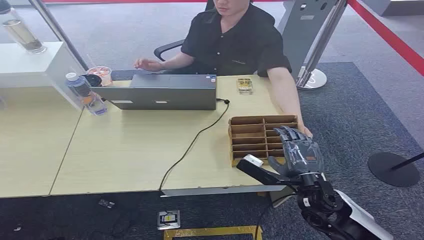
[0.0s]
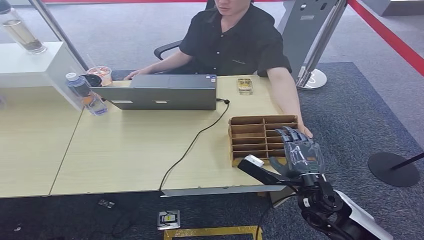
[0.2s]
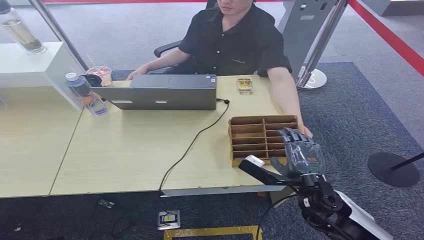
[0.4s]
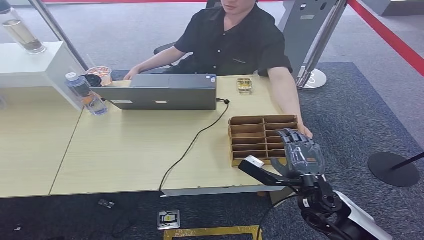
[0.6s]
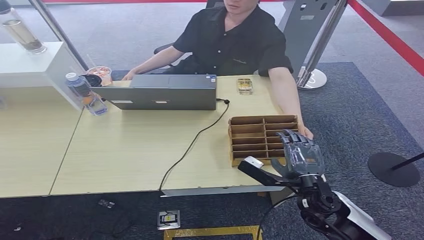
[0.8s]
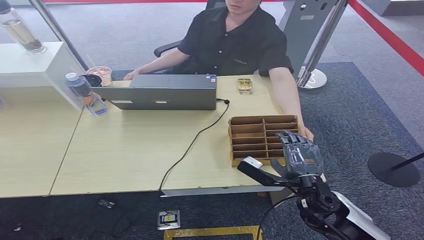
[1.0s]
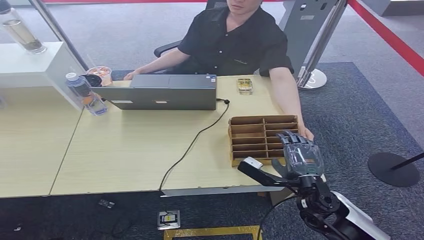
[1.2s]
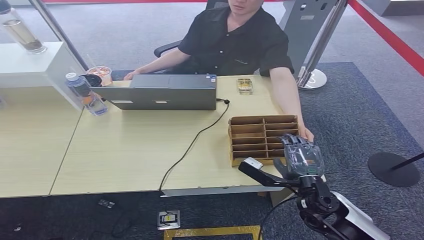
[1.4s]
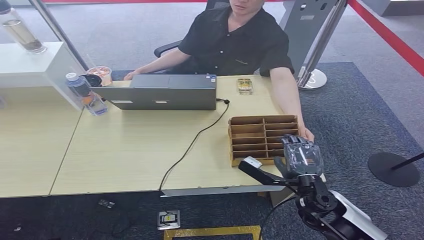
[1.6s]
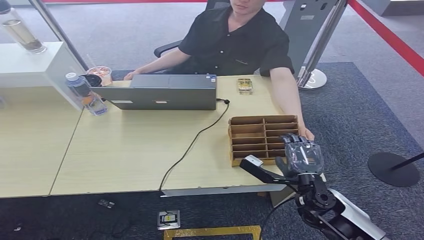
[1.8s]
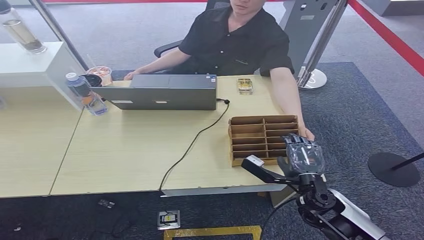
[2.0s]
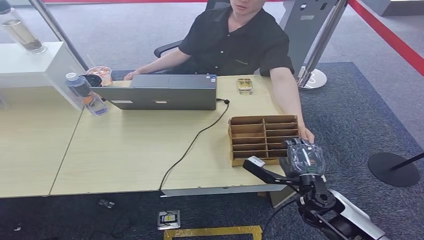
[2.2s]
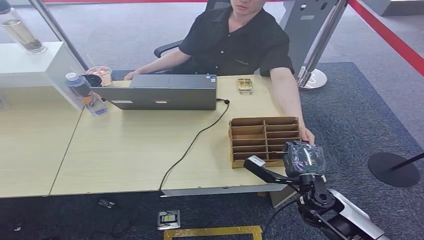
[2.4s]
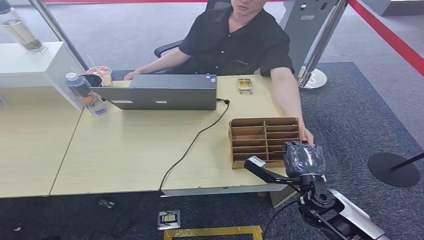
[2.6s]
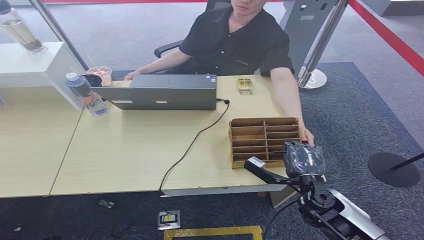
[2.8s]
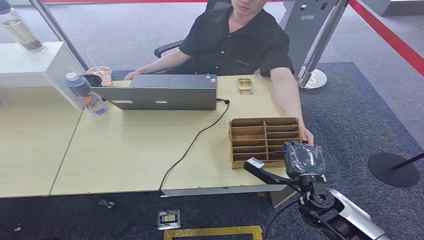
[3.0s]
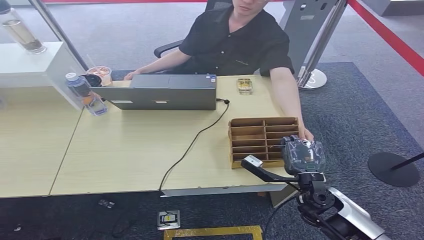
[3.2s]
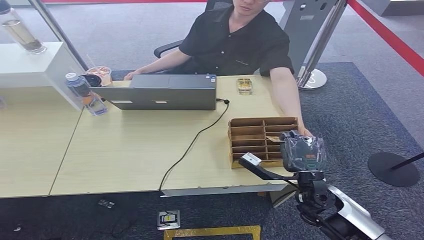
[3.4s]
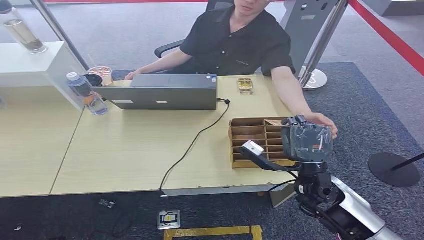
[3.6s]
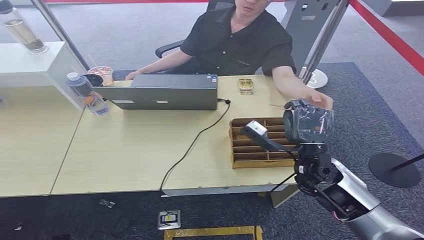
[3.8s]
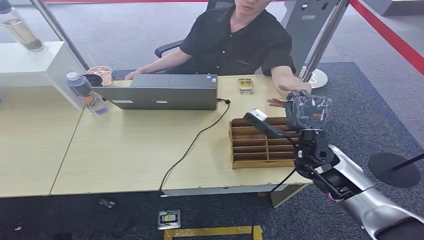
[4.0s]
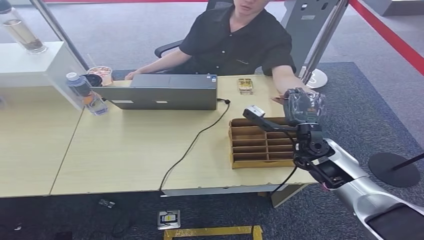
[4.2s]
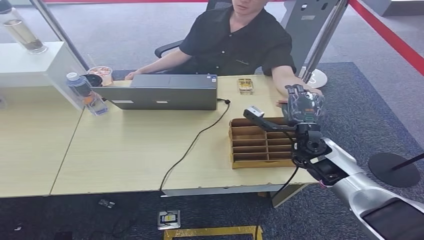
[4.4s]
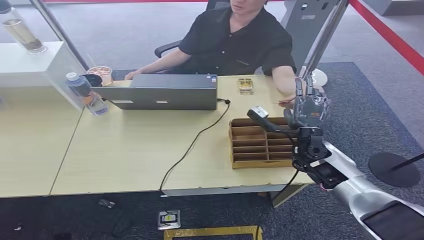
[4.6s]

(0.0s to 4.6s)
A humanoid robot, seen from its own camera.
Step, 0.0s - 3.2s: Pick up the room card from the card holder.
Step, 3.6s - 4.4s: Hand the room card to the target.
1.6s - 3.0s: The hands stay close to where they were, moving slightly.
3.0s - 4.6s: The right hand heads forward and upward, covering about 15 cm.

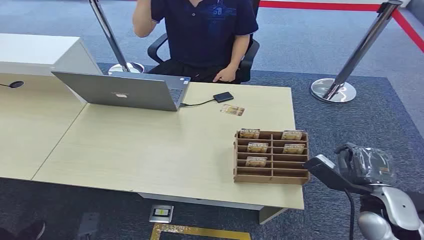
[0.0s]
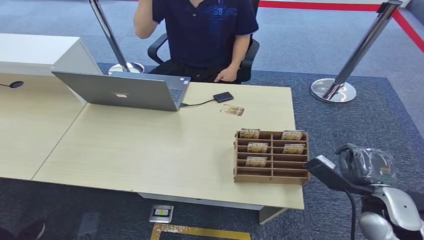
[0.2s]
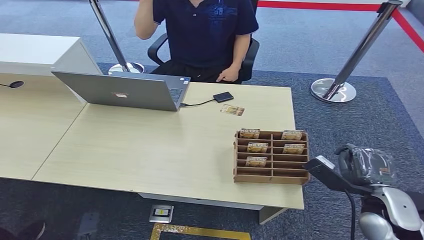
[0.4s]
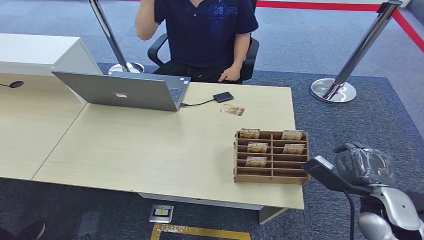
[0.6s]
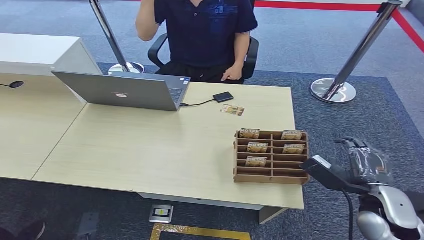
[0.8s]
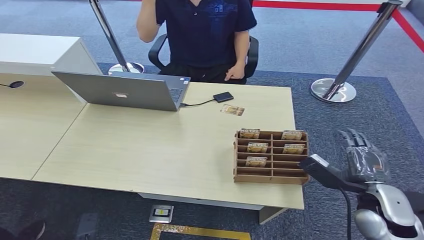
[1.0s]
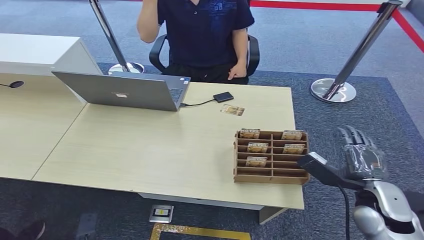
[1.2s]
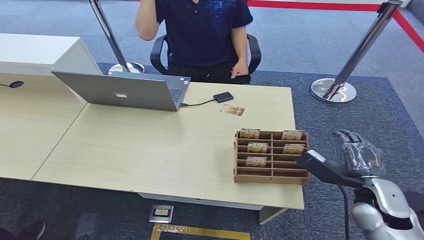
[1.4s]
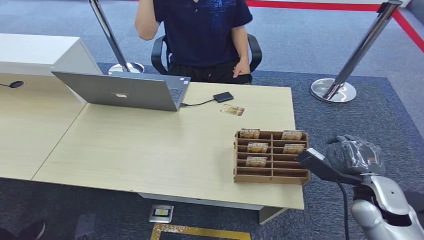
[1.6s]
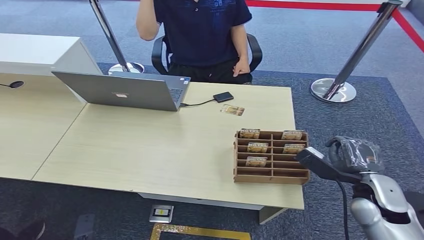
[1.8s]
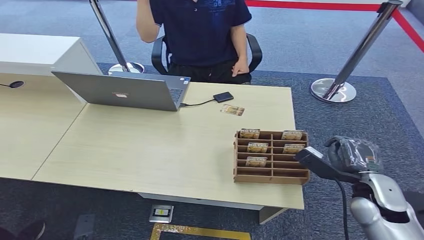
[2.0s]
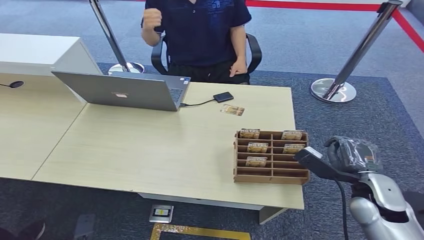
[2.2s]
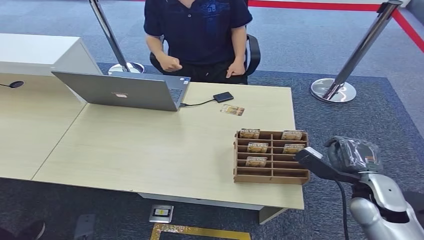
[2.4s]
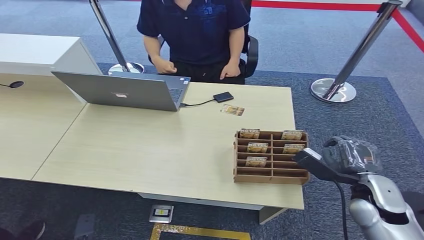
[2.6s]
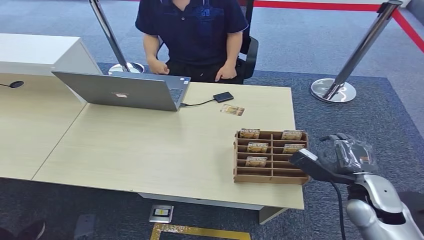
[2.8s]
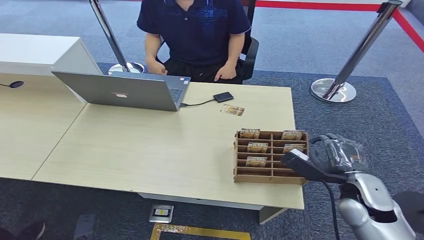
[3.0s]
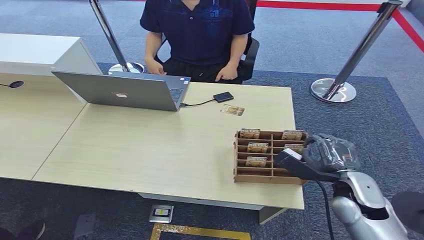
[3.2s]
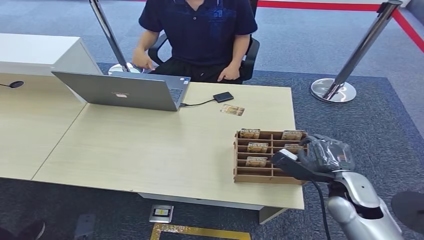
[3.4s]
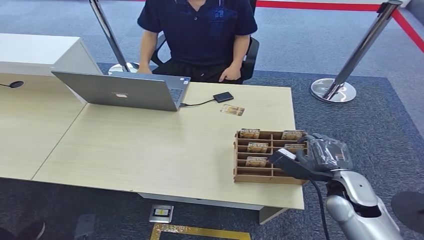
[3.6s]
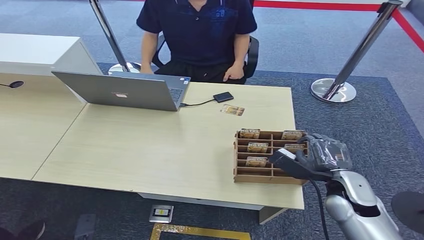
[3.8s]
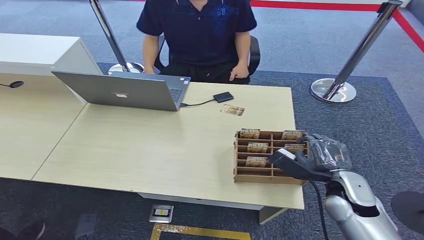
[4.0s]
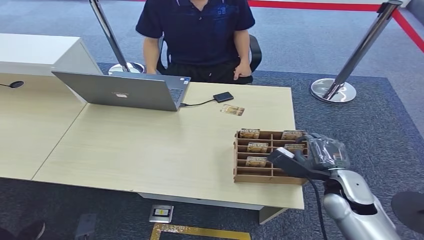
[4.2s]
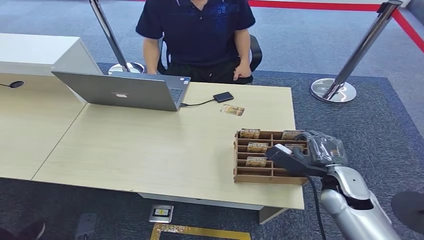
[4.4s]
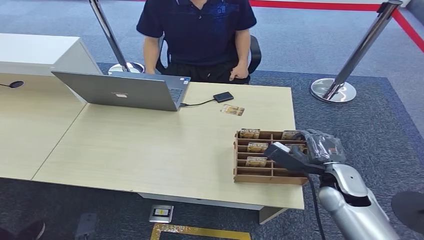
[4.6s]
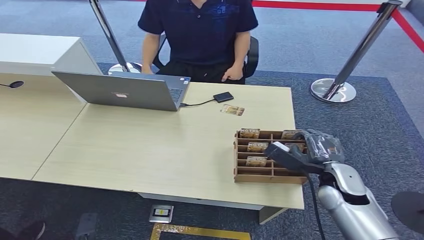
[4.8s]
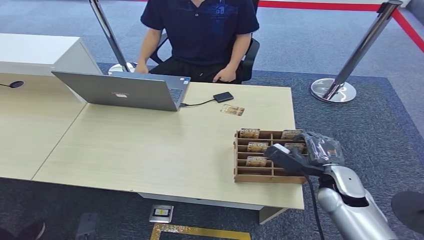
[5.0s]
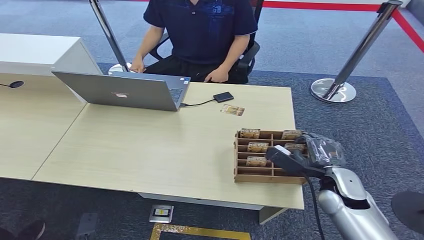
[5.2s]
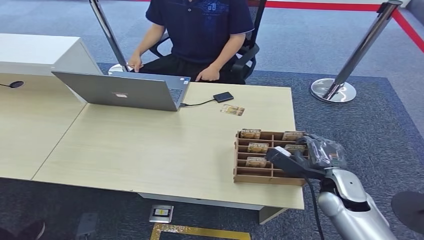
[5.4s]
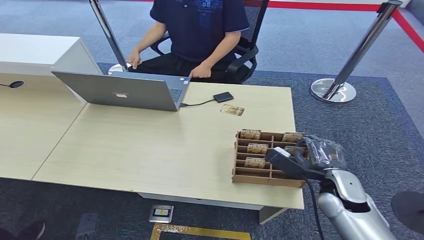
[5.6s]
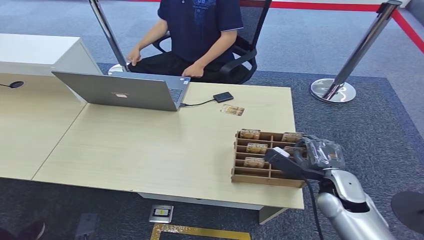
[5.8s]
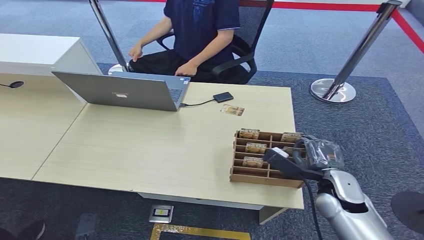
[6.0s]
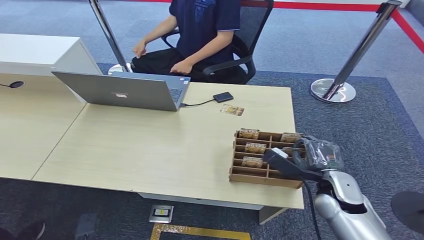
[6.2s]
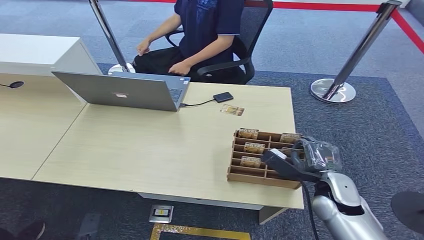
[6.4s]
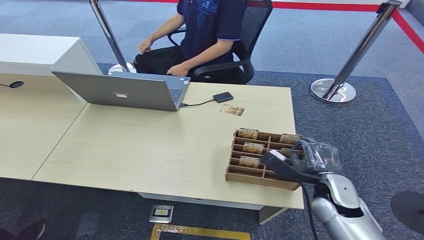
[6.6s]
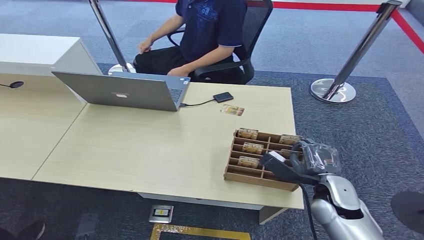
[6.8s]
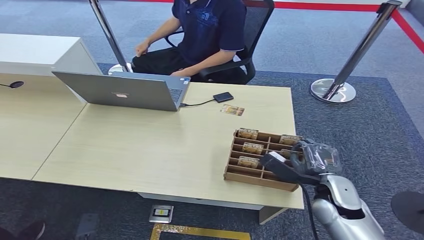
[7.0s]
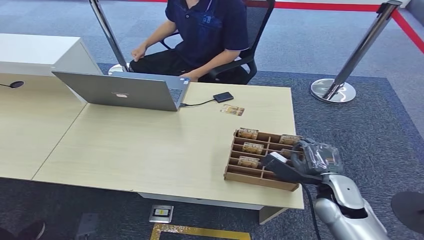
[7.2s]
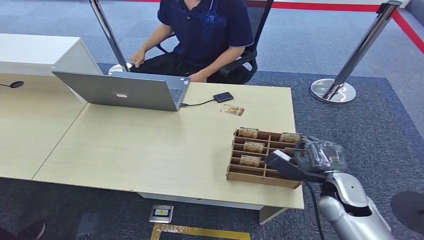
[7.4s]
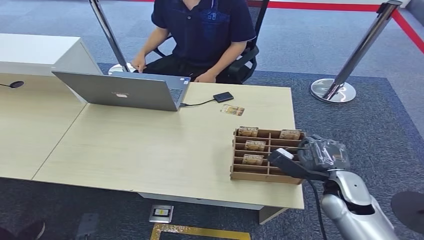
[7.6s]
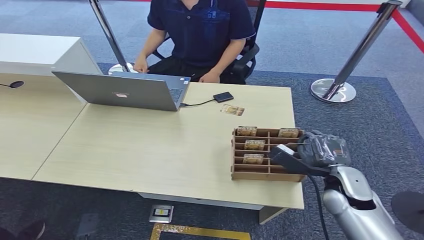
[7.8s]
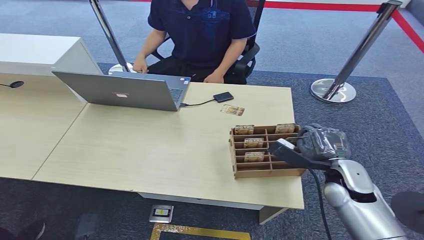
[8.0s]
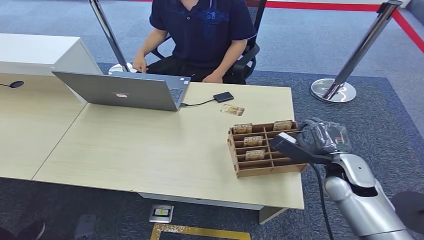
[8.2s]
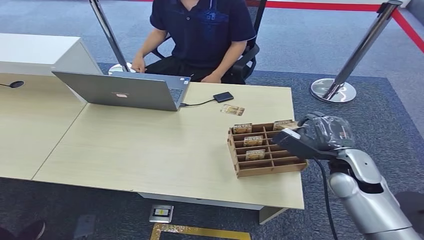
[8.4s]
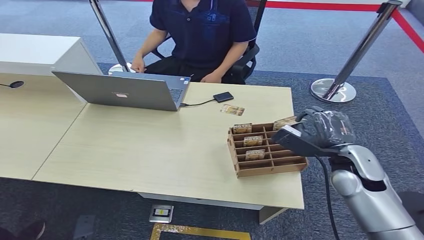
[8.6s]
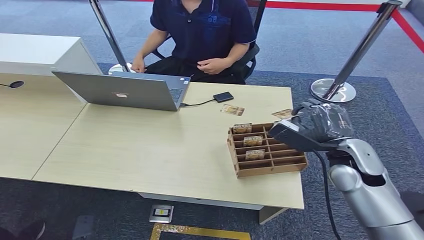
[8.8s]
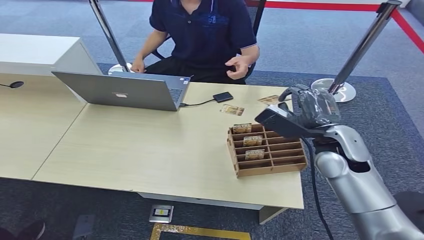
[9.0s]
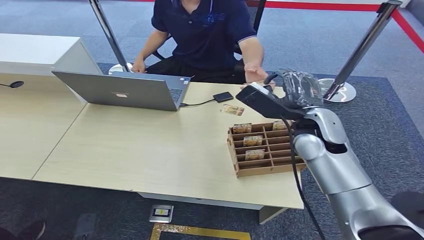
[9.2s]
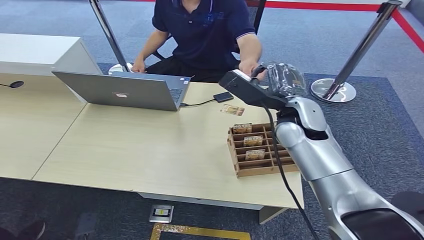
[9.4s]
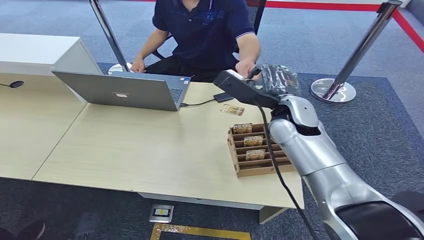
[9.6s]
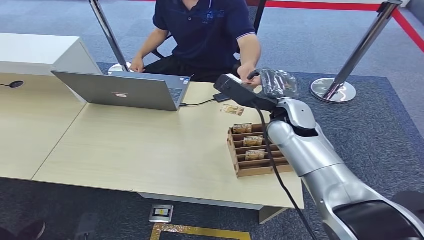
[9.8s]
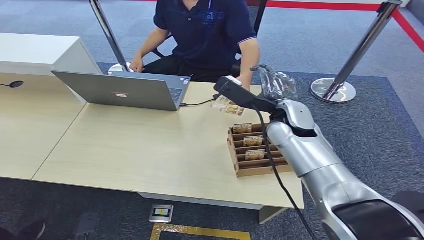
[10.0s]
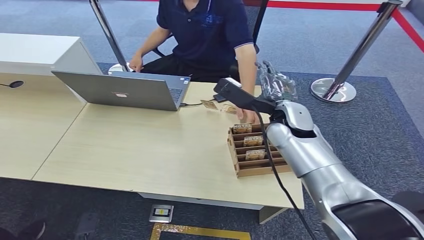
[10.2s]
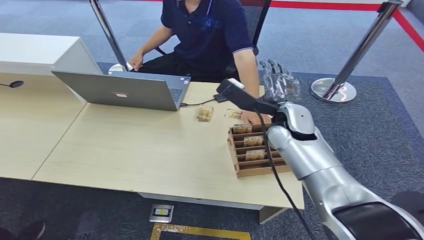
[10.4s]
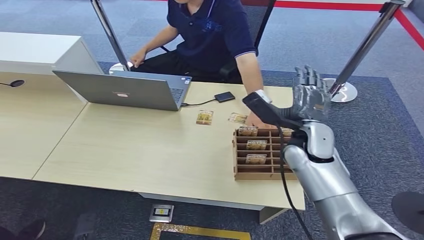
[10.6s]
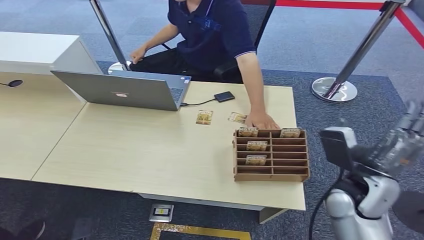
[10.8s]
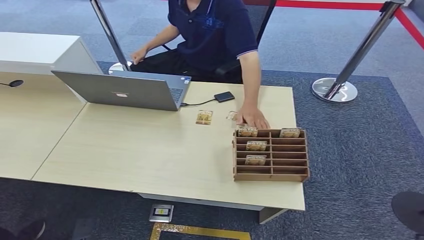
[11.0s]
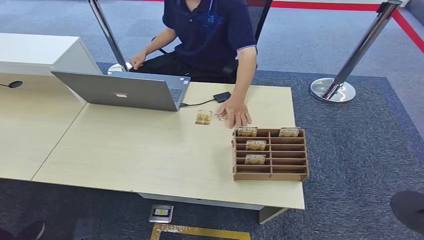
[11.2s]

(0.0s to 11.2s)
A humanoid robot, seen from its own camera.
Step, 0.0s - 7.6s: Pick up the room card from the card holder.
Step, 8.0s - 11.2s: Hand the room card to the target.
1.6s - 4.8s: There are only small adjustments of the hands.
4.8s - 6.4s: The hands make only small movements.
6.4s - 8.0s: The right hand moves some 5 cm.
8.0s - 9.6s: The right hand travels to the left, upward and forward by some 25 cm.
9.6s - 11.2s: The right hand travels backward and to the right by roughly 35 cm.
